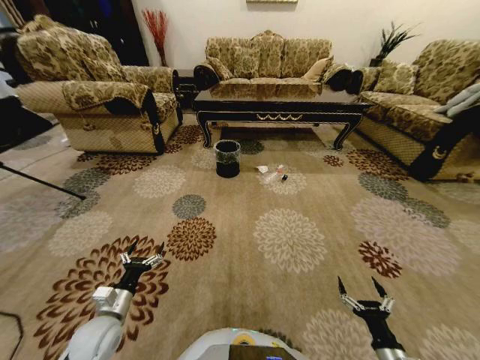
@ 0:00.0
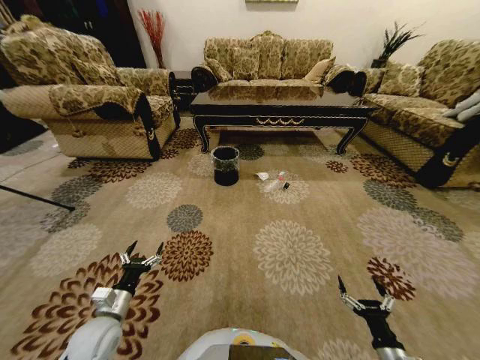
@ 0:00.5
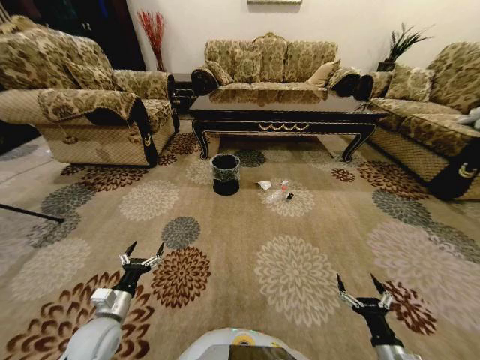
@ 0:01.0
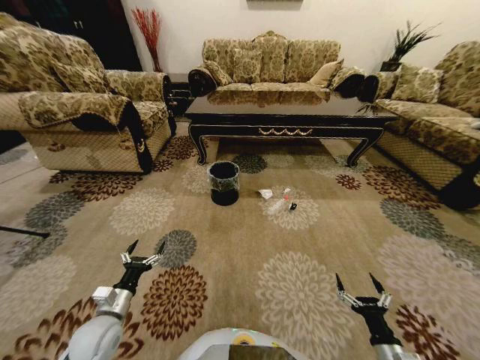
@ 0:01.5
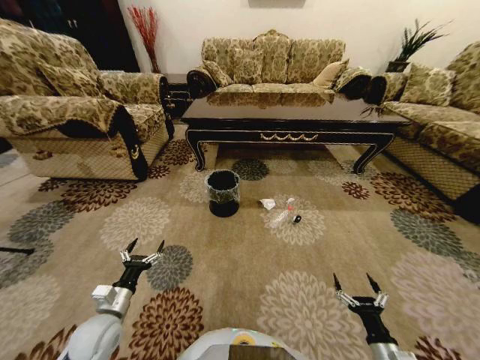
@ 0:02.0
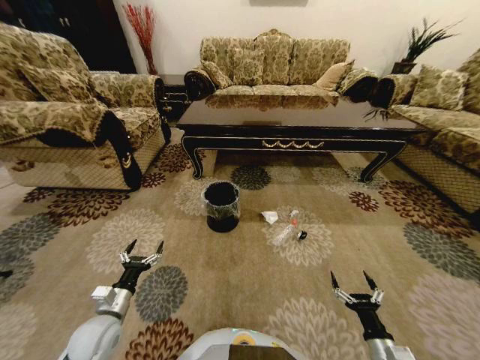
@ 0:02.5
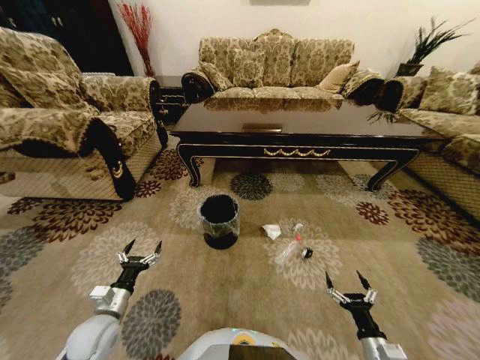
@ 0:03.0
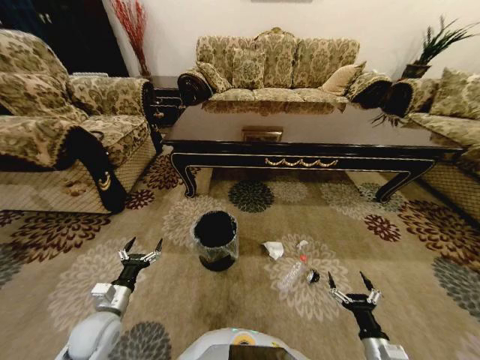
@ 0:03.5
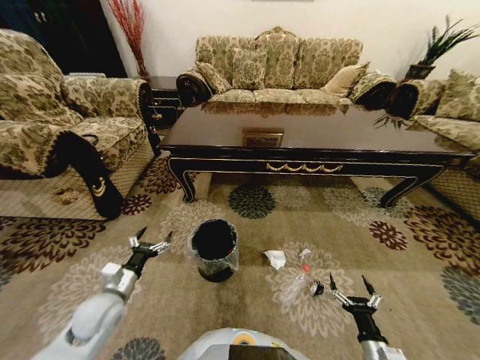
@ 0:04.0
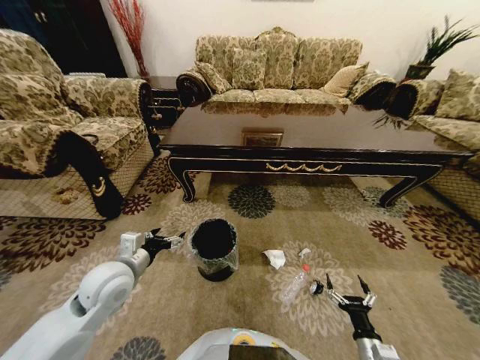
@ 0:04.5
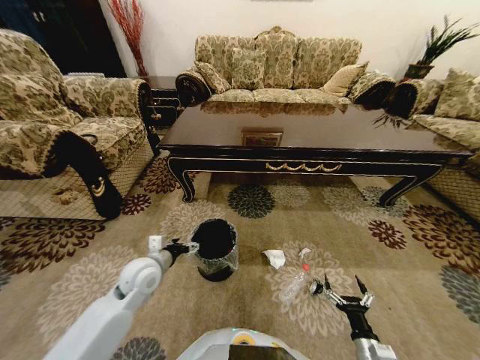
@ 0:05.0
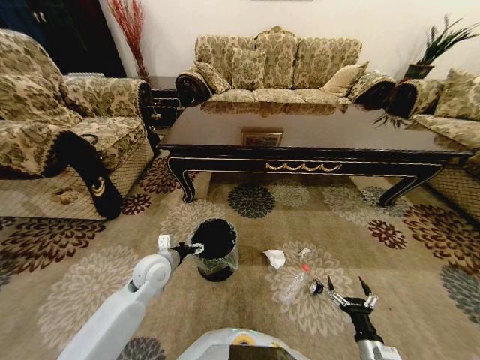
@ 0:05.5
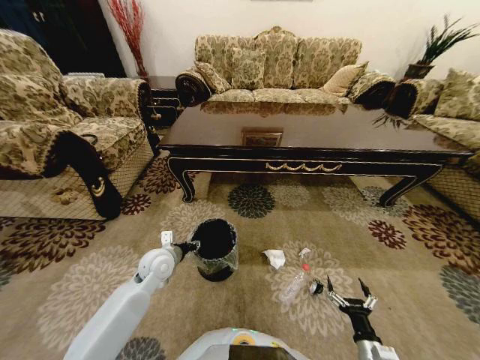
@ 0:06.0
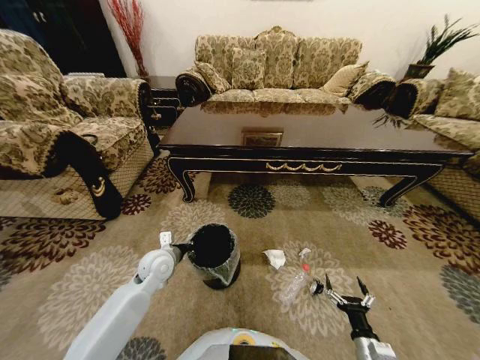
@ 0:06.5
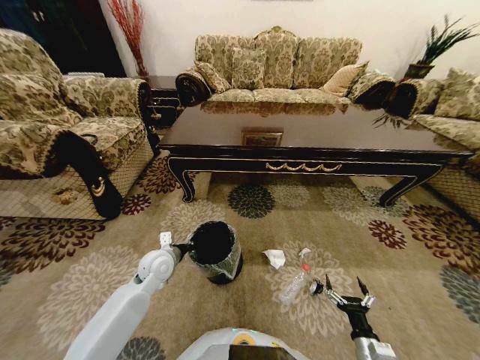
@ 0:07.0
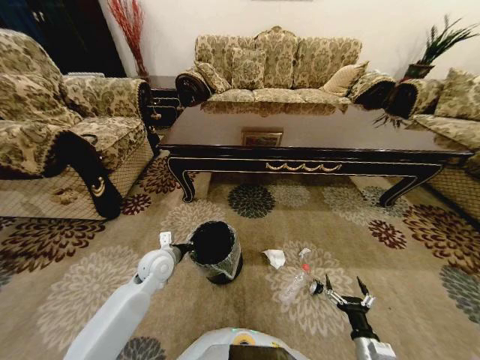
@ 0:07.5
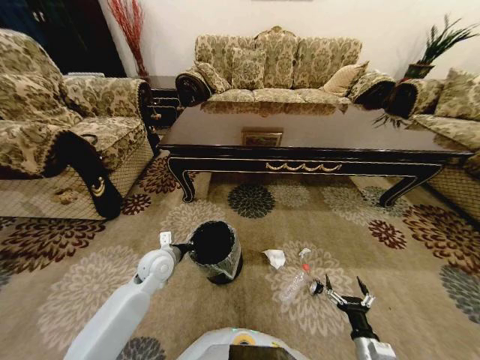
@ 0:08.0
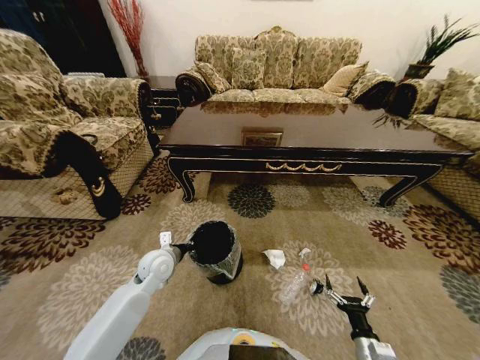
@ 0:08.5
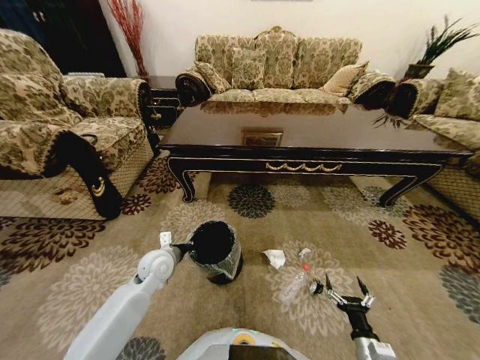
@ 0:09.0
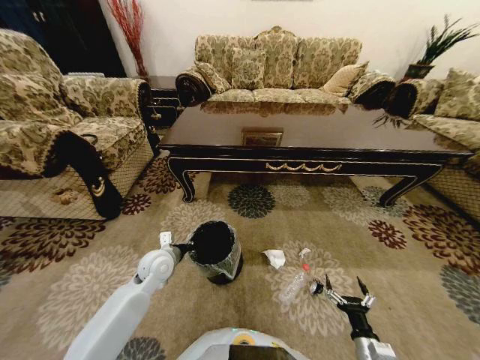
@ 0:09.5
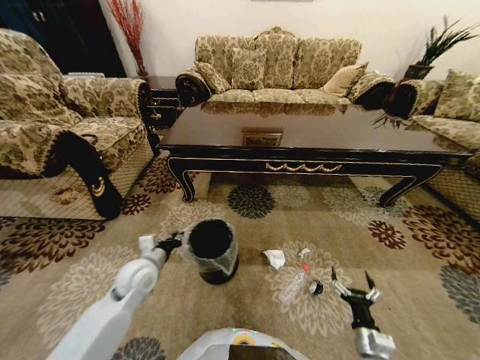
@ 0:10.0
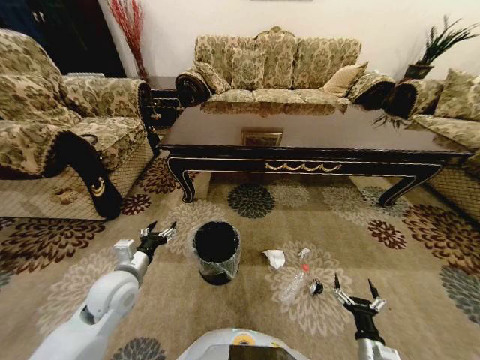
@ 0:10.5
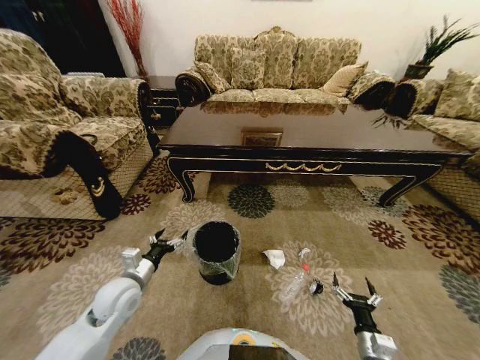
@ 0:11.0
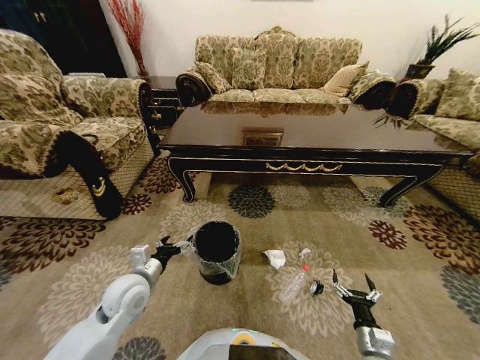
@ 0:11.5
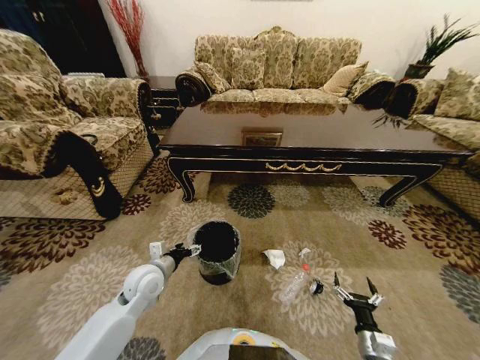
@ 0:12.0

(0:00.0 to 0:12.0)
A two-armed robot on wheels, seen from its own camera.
Task of the whole recording: Move to the front of the table and pick up the trash from the floor, then place it into the trash bin.
0:02.0 - 0:04.0: The left gripper ends up approximately 5 cm from where it was.
0:04.0 - 0:06.0: The left gripper shifts about 15 cm forward and to the right, and closes.
0:06.0 - 0:08.0: The left gripper closes its fingers.
0:08.0 - 0:10.0: The left gripper shifts by some 5 cm.
0:10.0 - 0:12.0: The left gripper opens up.

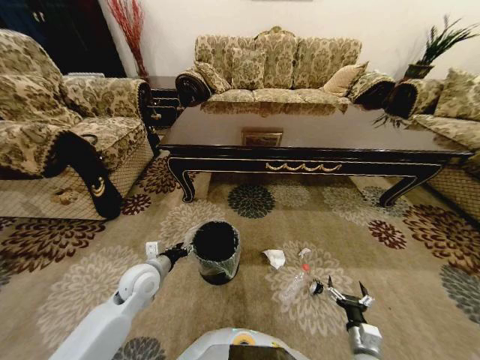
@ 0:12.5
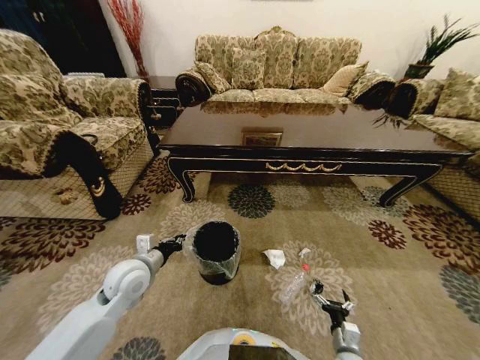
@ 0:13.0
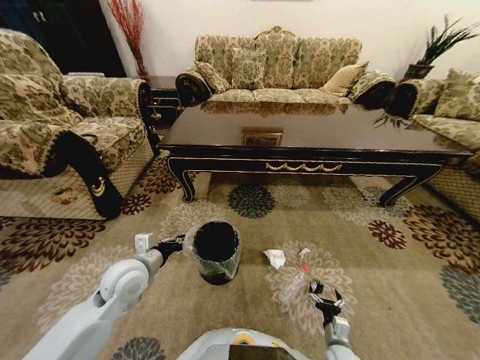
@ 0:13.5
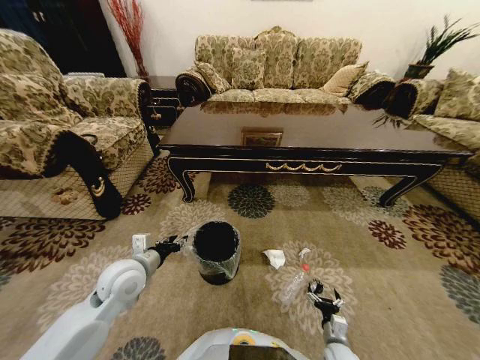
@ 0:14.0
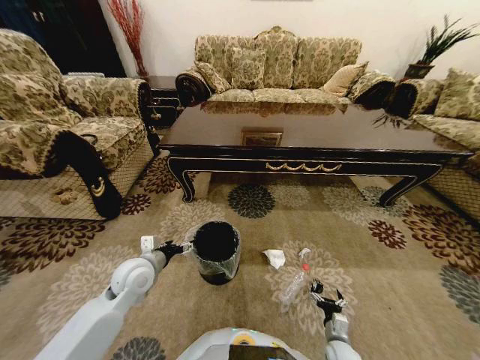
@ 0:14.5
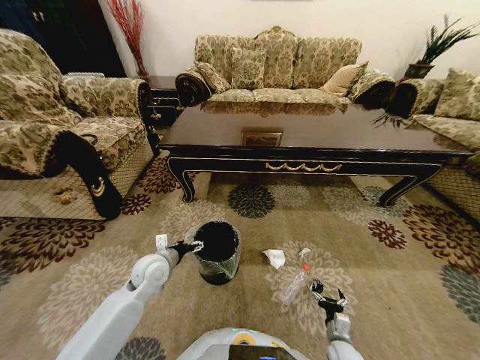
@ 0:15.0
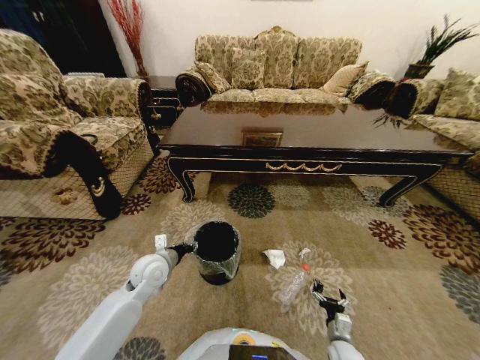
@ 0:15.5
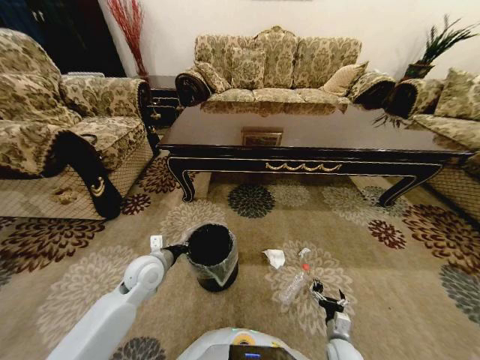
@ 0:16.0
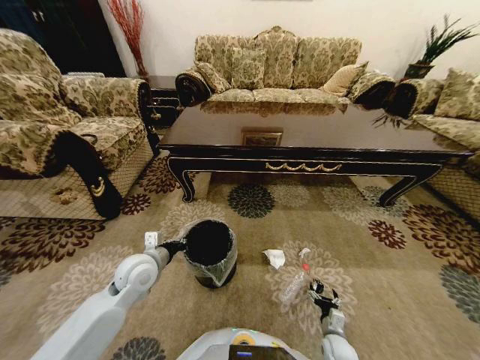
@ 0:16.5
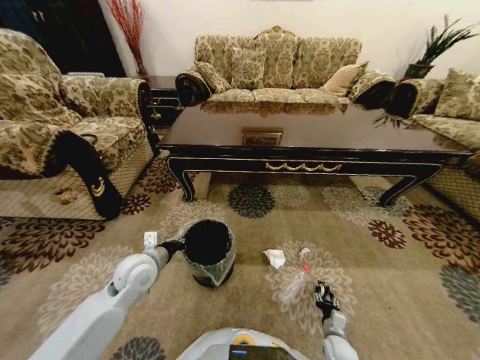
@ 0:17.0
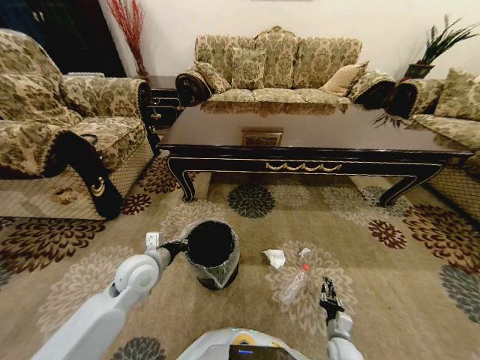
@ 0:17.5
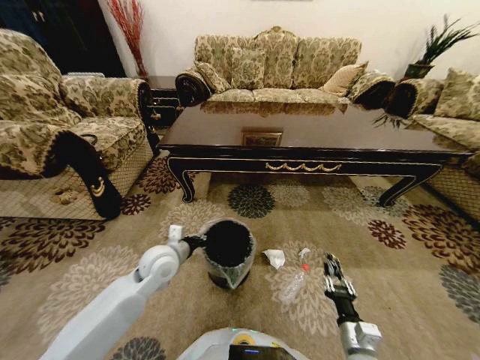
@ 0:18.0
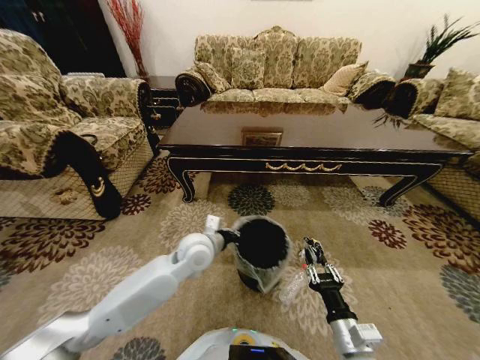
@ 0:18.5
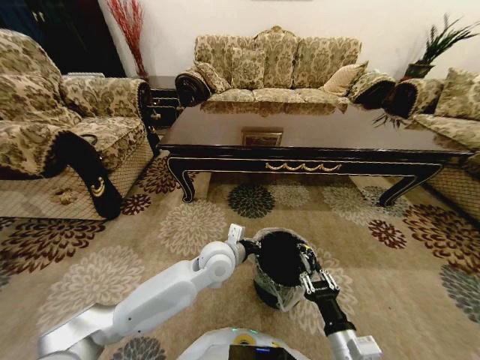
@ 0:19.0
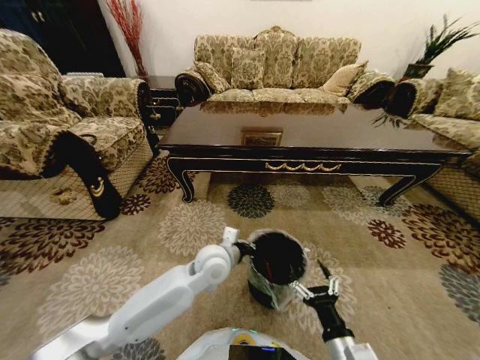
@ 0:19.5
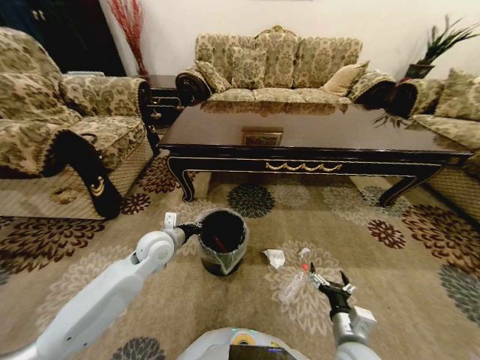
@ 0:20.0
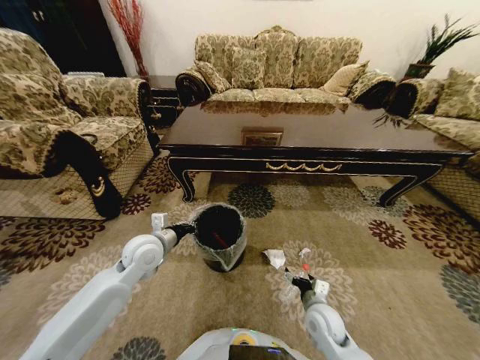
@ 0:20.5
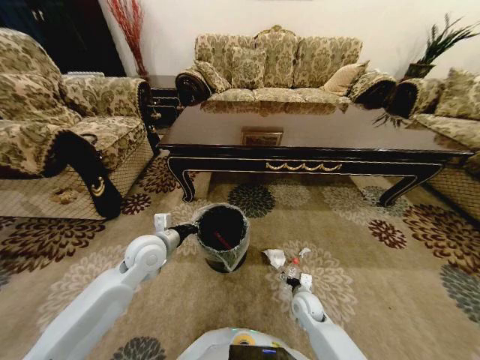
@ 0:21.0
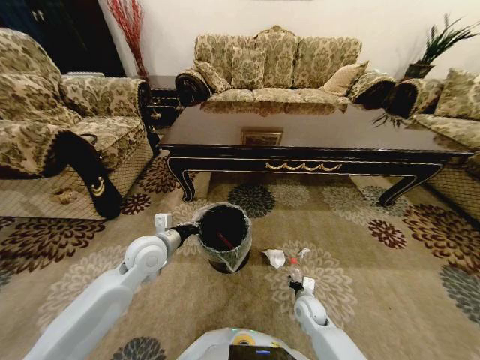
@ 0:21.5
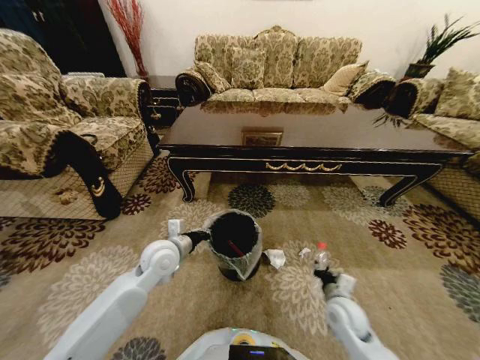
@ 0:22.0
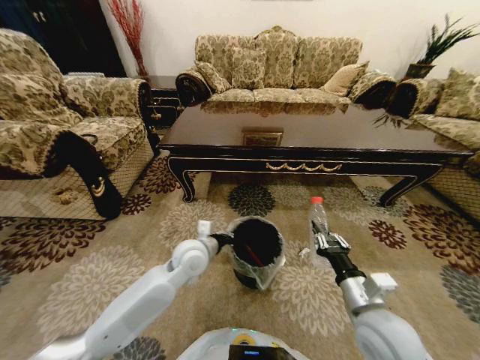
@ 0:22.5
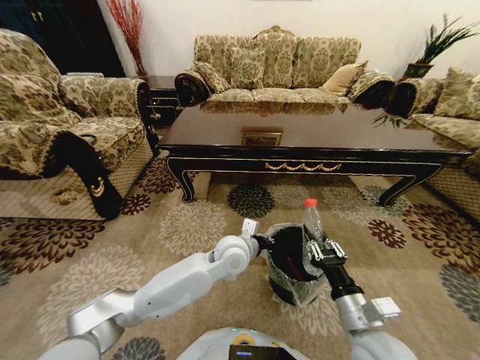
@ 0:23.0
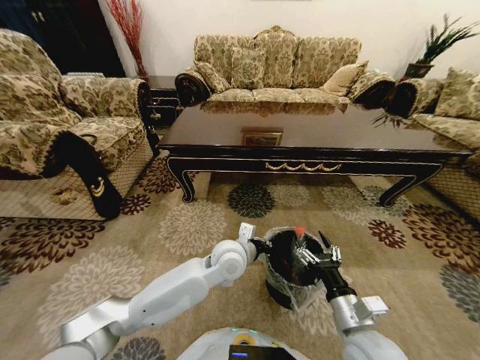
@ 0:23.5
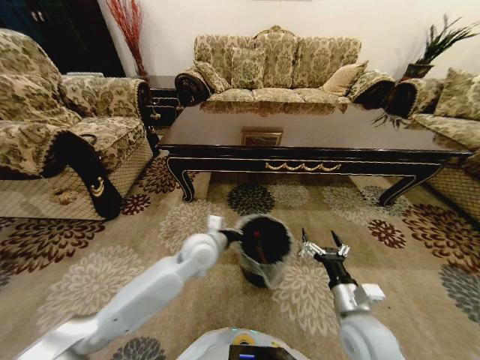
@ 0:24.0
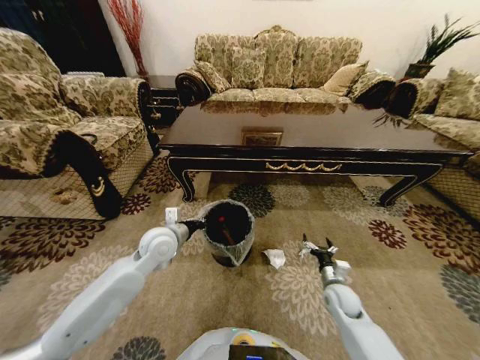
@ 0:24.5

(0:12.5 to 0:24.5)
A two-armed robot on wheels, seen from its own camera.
Task of the whole recording: Move to the front of the table and pick up the trash from the floor, then place it into the trash bin.
0:12.5 - 0:14.5: The left gripper opens; the right gripper goes roughly 10 cm downward.
0:14.5 - 0:16.5: The left gripper closes its fingers.
0:16.5 - 0:18.5: The left gripper moves to the right, roughly 15 cm, while the right gripper heads upward, covering about 25 cm, and closes its fingers.
0:18.5 - 0:20.5: The right gripper moves forward and downward, some 15 cm, and opens up; the left gripper is displaced to the left by roughly 15 cm.
0:20.5 - 0:22.5: The right gripper goes some 15 cm upward, and closes up. Meanwhile the left gripper travels to the right by about 15 cm.
0:22.5 - 0:24.5: The left gripper moves to the left, approximately 10 cm, while the right gripper moves downward and forward, about 25 cm, and opens.

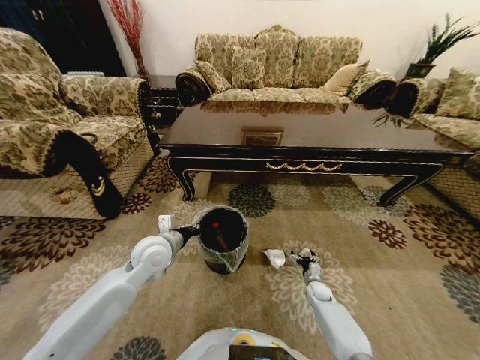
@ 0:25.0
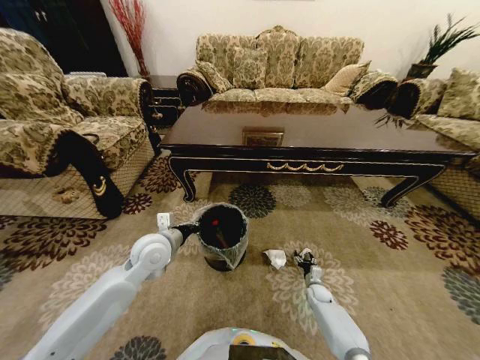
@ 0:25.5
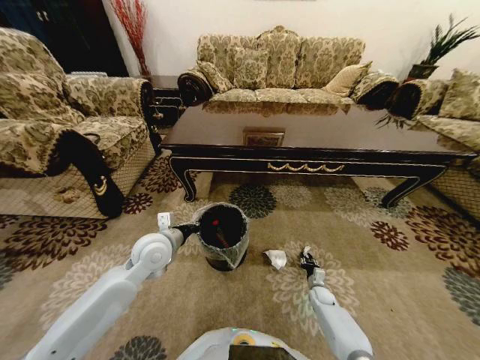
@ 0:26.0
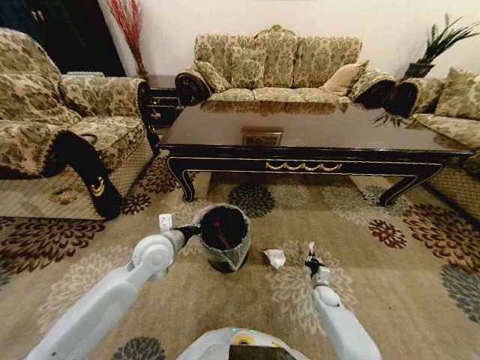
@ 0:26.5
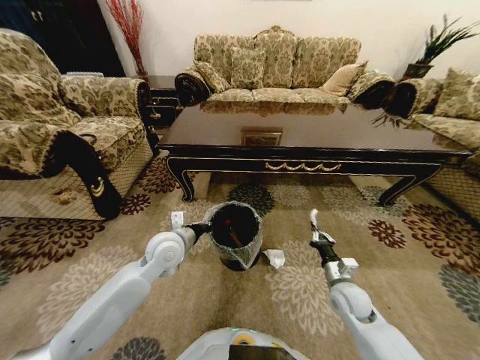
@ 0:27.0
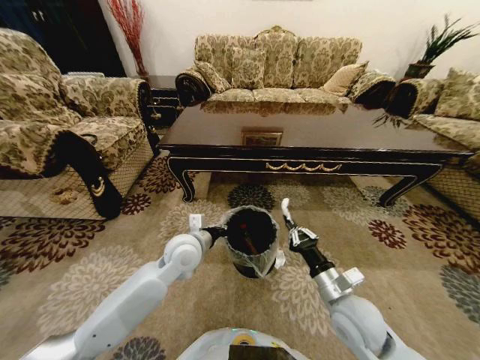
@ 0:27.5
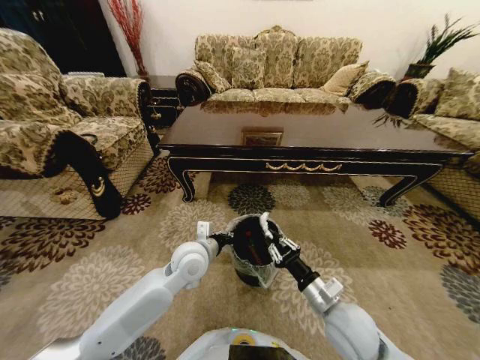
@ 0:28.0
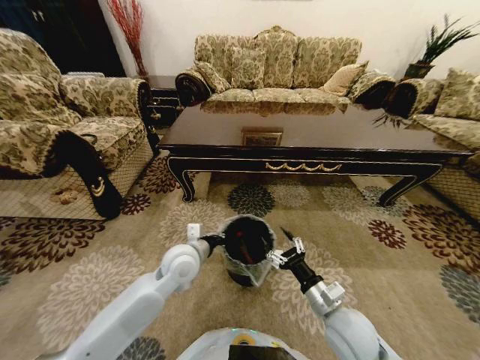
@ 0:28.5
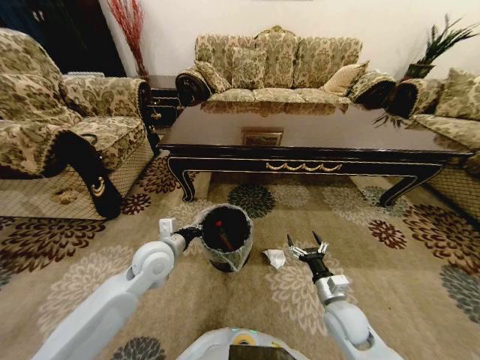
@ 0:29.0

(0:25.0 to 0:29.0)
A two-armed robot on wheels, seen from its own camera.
Task of the whole recording: Move to the front of the table and pick up the trash from the floor, then place it into the trash bin.
0:25.0 - 0:27.0: The right gripper travels upward by about 20 cm, and closes up.
0:27.0 - 0:29.0: The left gripper reaches approximately 5 cm to the right, then returns. Meanwhile the right gripper reaches some 10 cm upward, then returns, and opens its fingers.
